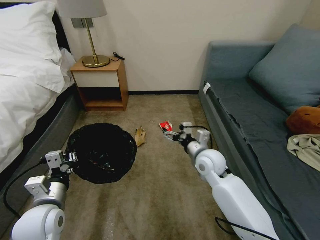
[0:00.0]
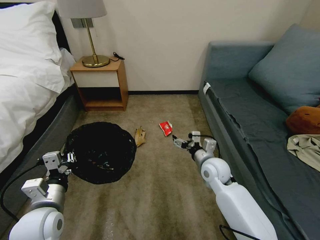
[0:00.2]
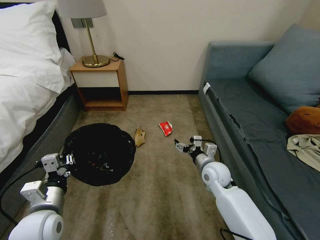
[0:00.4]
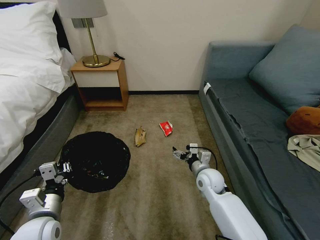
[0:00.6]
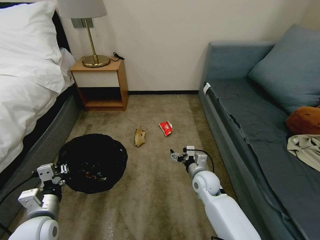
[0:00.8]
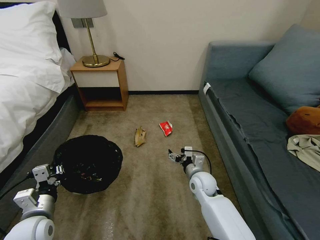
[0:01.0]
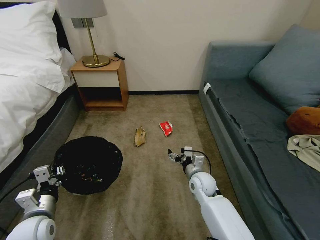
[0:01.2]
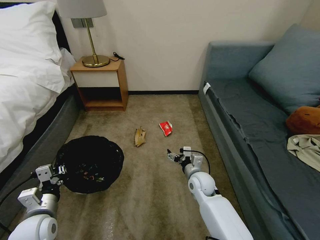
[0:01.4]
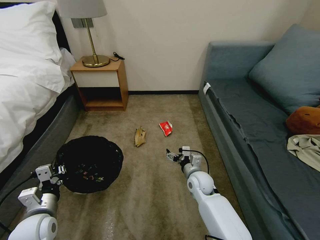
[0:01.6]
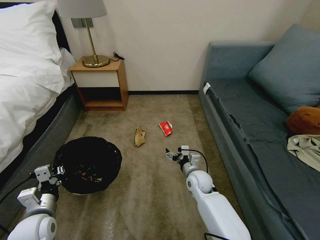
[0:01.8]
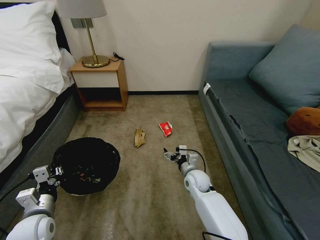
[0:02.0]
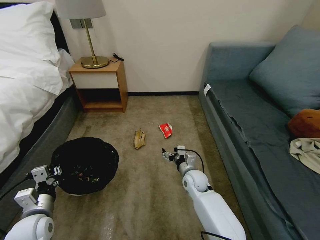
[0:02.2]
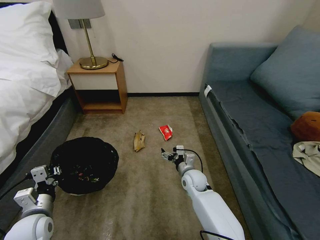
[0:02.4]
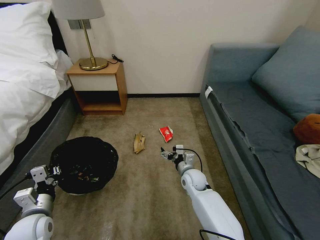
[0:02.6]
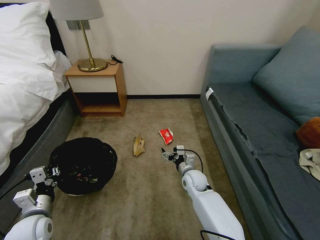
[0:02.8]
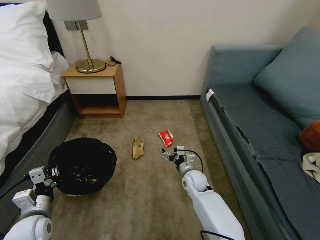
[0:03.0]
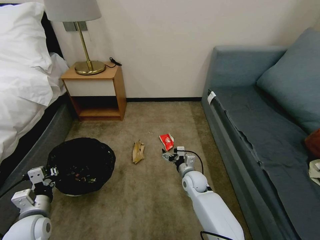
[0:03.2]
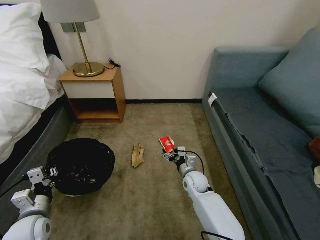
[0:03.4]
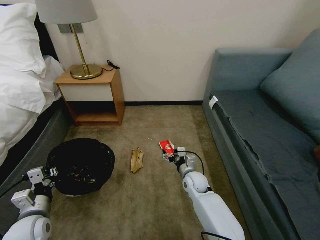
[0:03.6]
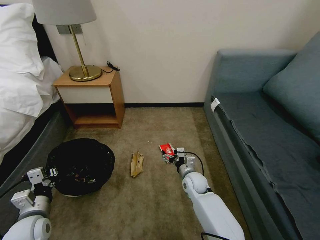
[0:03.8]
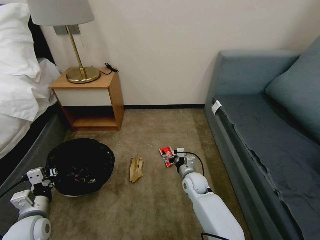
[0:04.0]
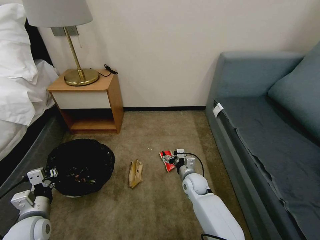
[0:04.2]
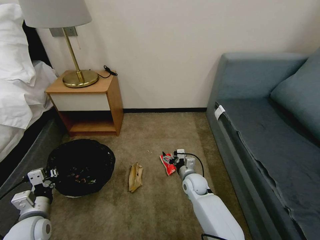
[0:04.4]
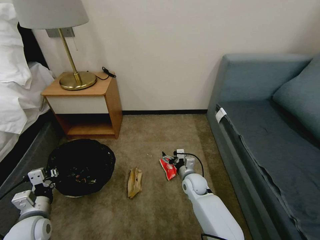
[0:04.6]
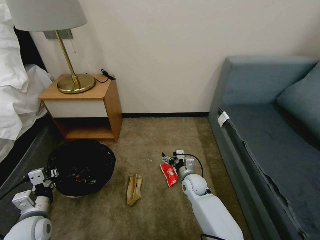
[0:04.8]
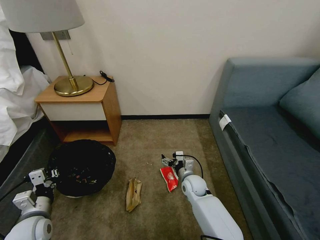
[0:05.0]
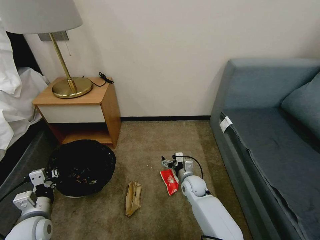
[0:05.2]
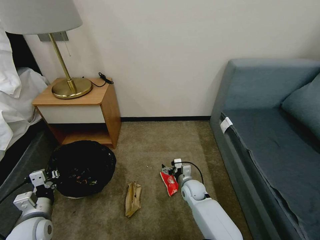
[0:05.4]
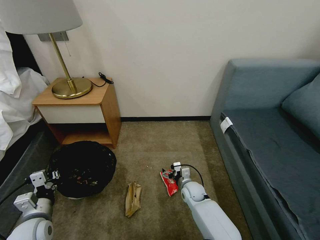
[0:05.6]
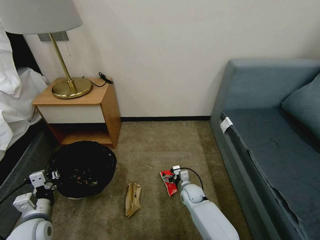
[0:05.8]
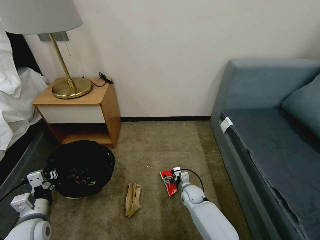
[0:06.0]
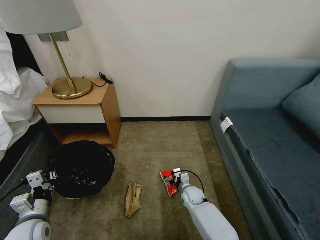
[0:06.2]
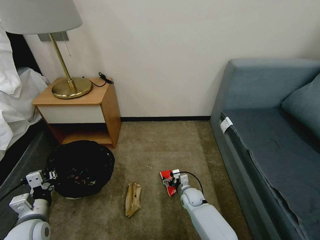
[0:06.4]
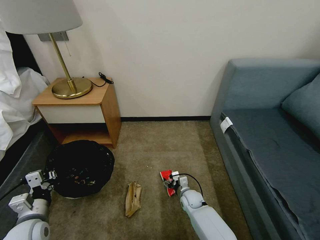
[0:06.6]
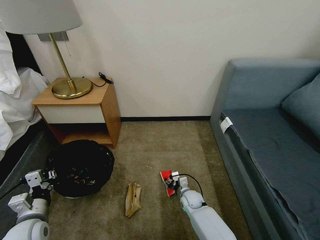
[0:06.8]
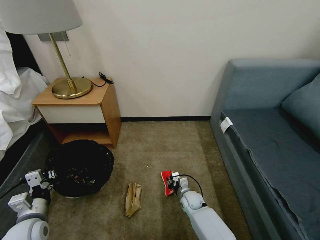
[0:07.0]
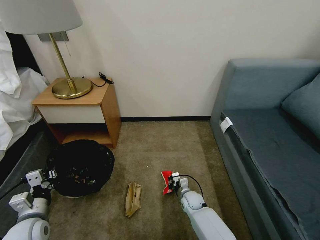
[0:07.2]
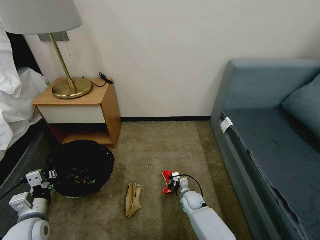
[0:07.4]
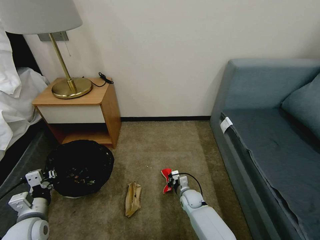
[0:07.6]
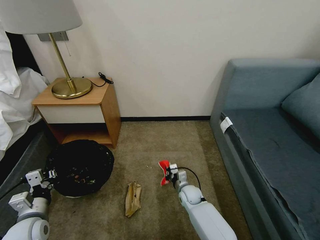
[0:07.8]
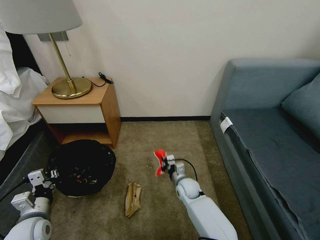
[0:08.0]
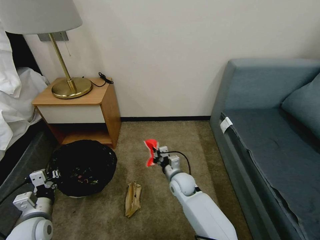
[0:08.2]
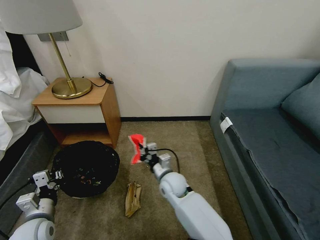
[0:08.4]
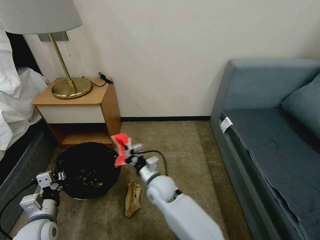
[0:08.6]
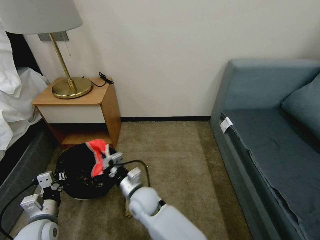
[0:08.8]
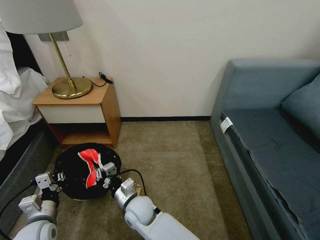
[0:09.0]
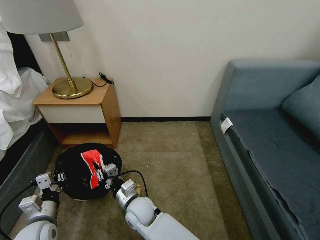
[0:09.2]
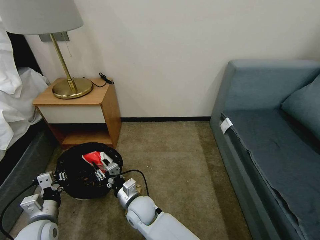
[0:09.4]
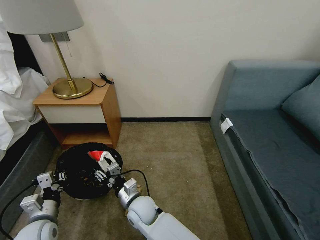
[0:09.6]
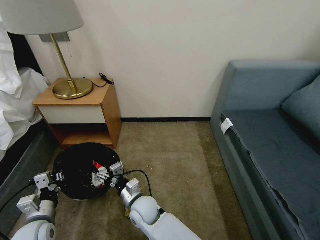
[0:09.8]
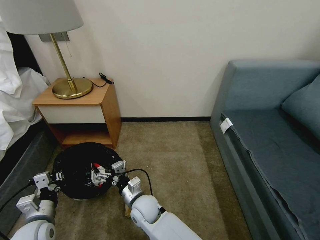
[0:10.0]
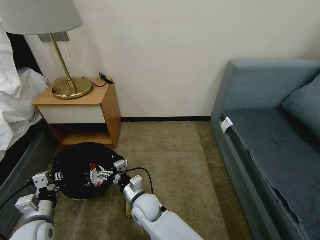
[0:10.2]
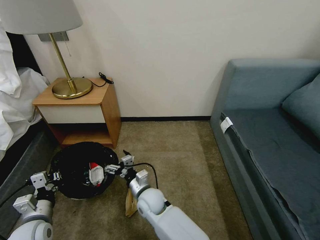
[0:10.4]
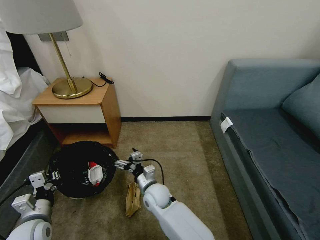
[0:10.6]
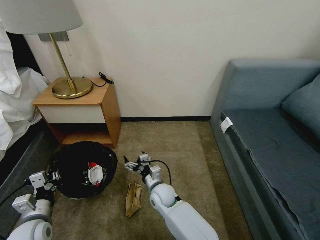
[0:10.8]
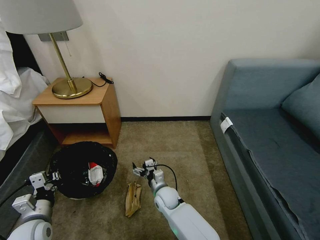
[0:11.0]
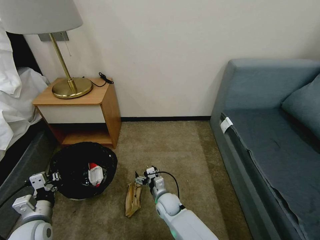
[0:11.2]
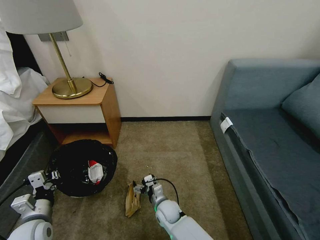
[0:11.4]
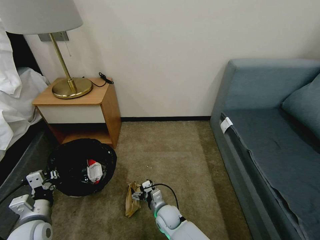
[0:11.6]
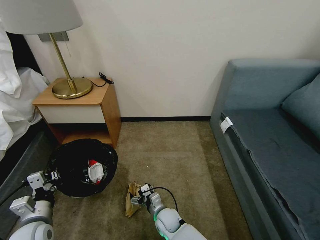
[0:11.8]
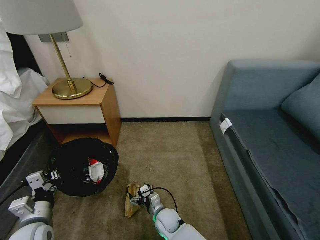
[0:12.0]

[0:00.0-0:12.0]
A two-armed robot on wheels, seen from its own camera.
Task of the whole recording: Pick up the trash bin, then pick up the garbage on the floor and place it into the trash bin.
0:00.0 to 0:01.6: The right gripper travels downward by roughly 10 cm; the left gripper shifts about 5 cm downward.
0:01.6 to 0:03.0: The grippers stay close to where they were, moving slightly.
0:04.4 to 0:06.0: The right gripper goes some 10 cm downward.
0:06.0 to 0:07.6: The right gripper closes up.
0:07.6 to 0:09.0: The right gripper moves to the left, upward and backward, some 30 cm.
0:09.0 to 0:10.4: The right gripper changes place by about 5 cm, and opens.
0:10.4 to 0:12.0: The right gripper goes about 15 cm downward and to the right.

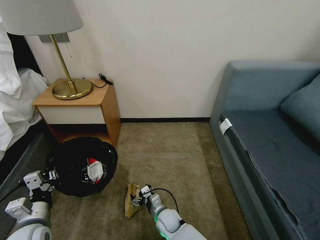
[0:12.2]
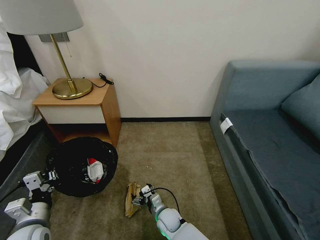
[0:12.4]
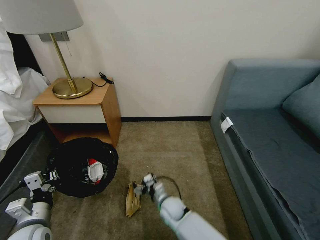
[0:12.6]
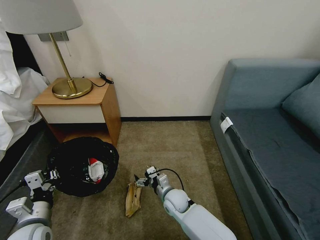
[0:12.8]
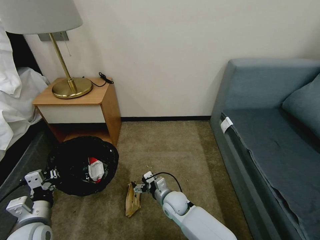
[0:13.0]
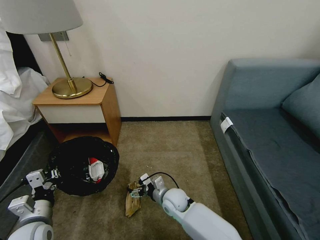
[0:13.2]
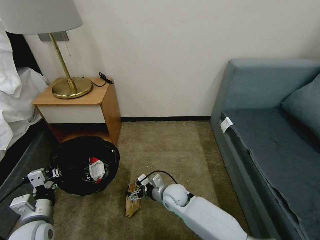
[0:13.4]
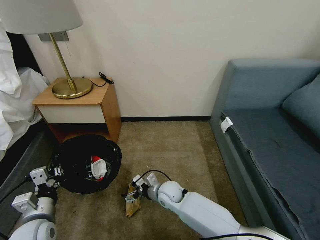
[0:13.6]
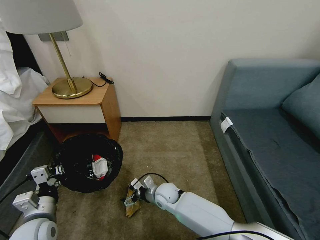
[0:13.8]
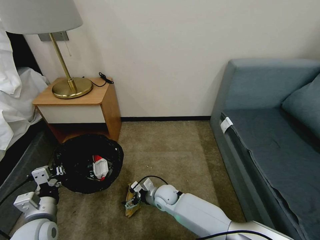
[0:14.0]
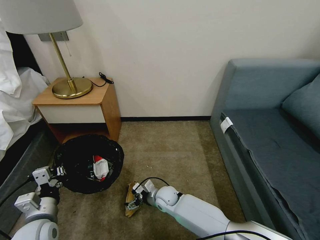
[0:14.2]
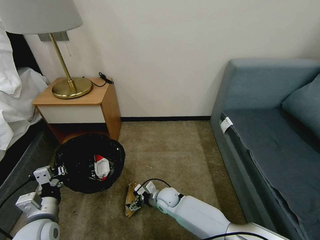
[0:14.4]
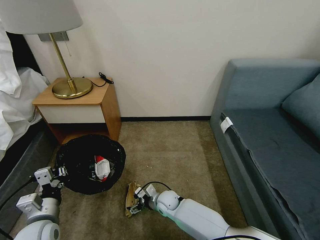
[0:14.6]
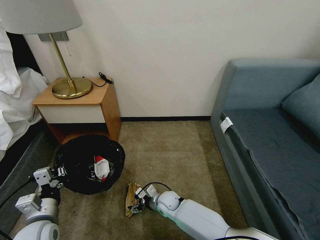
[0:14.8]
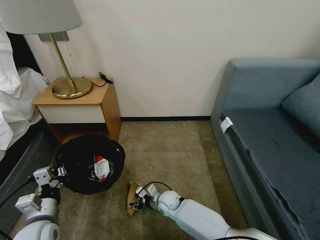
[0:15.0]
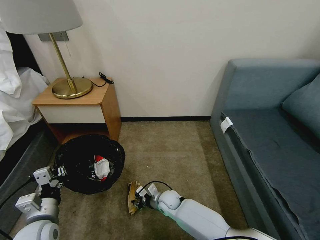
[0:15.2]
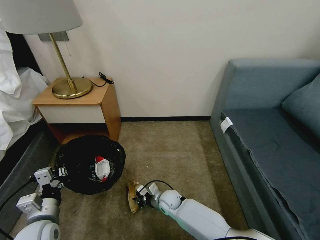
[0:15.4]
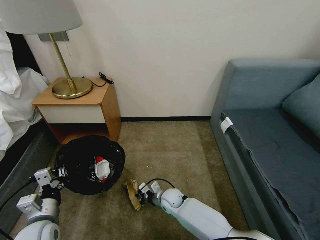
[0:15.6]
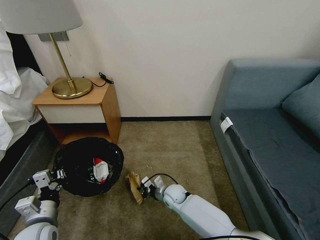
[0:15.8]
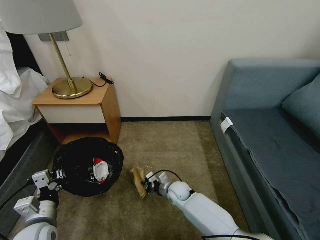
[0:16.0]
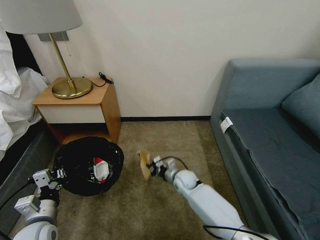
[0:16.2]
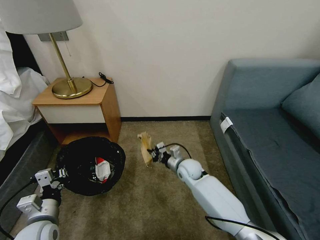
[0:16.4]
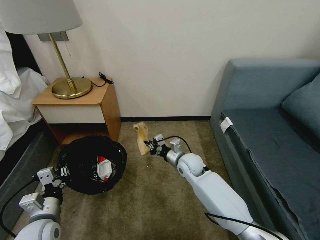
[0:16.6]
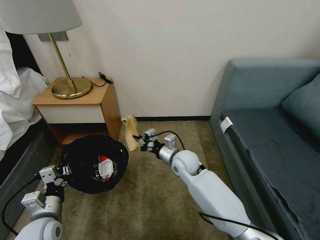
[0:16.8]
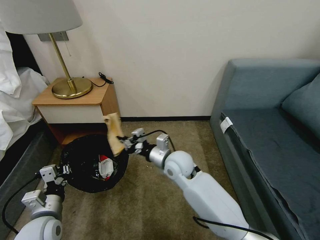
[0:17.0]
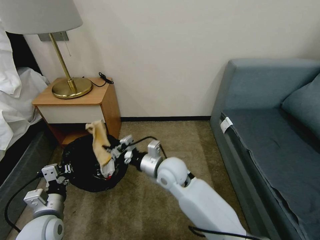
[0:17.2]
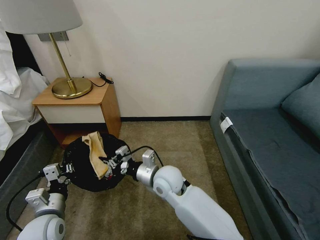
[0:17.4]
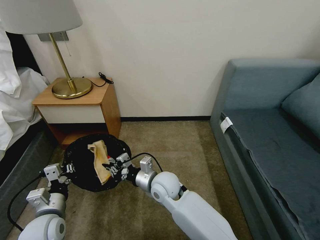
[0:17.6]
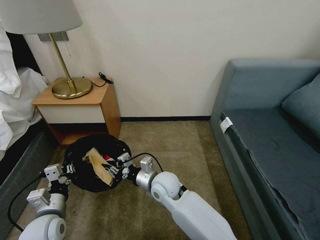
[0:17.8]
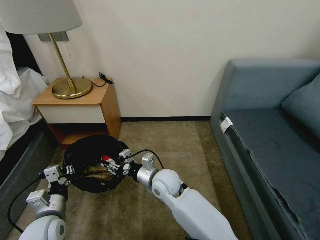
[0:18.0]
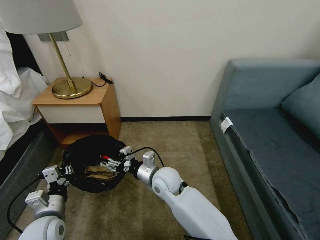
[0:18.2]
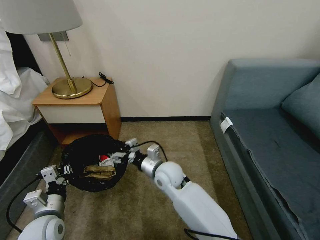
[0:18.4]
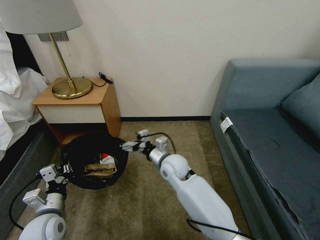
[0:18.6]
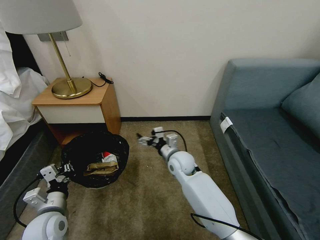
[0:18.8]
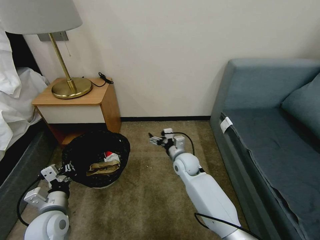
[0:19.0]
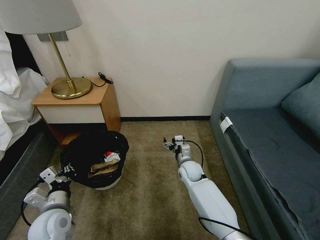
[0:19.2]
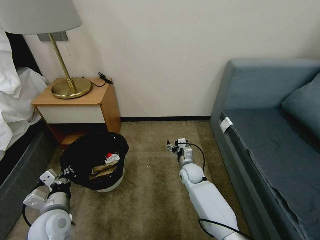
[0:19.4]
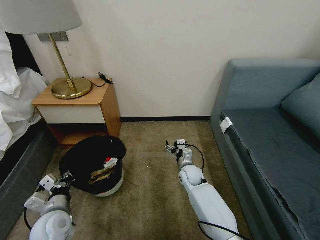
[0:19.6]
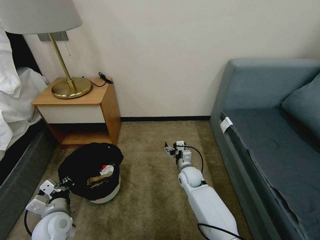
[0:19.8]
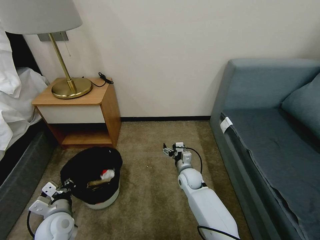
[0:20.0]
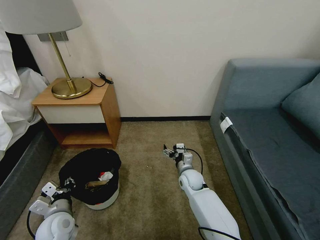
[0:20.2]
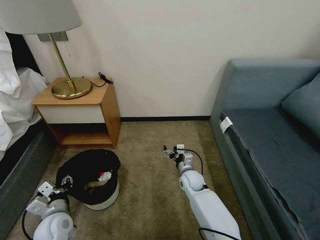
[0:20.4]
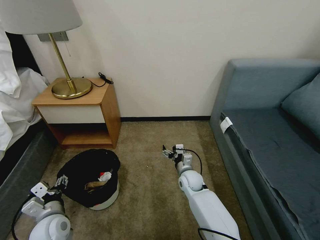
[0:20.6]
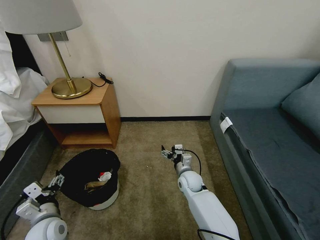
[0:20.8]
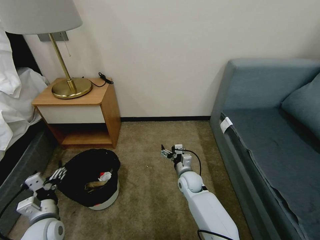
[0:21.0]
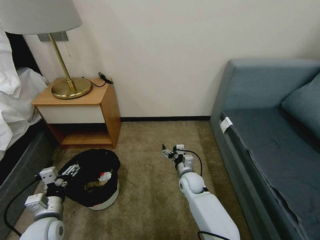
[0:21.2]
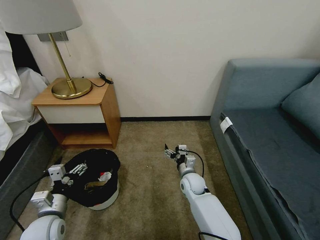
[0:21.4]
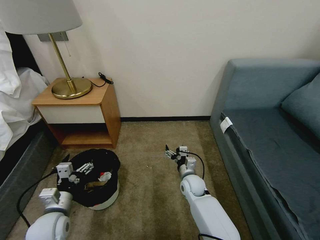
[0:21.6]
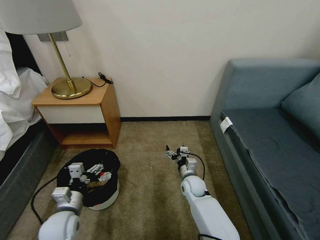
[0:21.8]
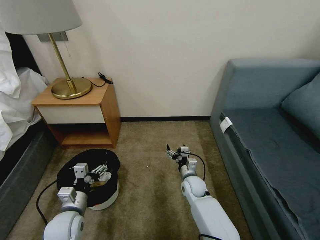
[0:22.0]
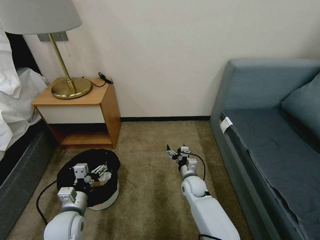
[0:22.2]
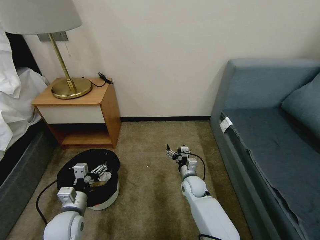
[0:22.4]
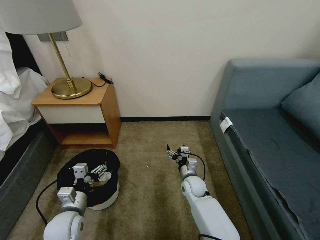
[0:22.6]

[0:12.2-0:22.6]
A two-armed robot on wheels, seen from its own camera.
Task of the whole recording: Pick up the trash bin, then pick up the garbage on the floor and place it into the trash bin.
0:12.2 to 0:13.6: The right gripper travels upward and forward by approximately 15 cm.
0:13.6 to 0:15.2: The right gripper is displaced downward by approximately 10 cm, and closes.
0:15.2 to 0:16.6: The right gripper heads upward, forward and to the right, covering about 20 cm.
0:16.6 to 0:18.2: The right gripper heads to the left and backward, covering about 15 cm, and opens its fingers.
0:18.2 to 0:19.6: The right gripper moves downward, to the right and forward, approximately 20 cm, and opens.
0:19.6 to 0:21.2: The left gripper opens its fingers.
0:21.2 to 0:22.6: The left gripper moves some 5 cm.
